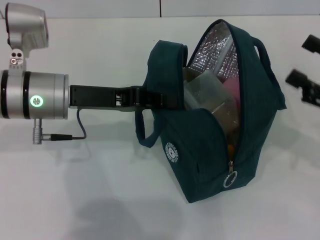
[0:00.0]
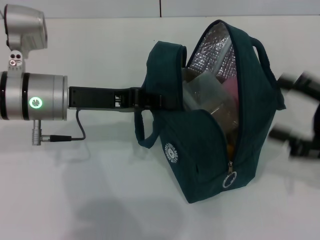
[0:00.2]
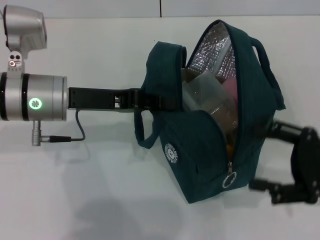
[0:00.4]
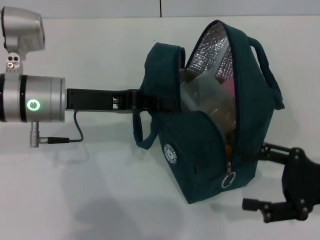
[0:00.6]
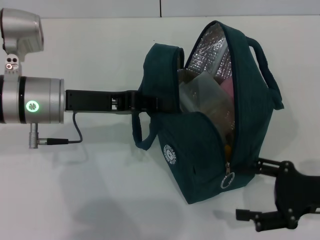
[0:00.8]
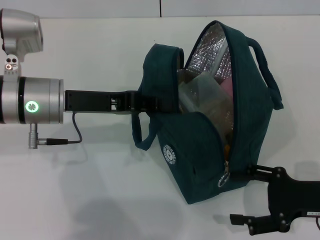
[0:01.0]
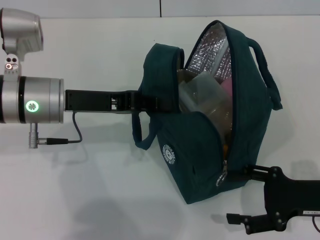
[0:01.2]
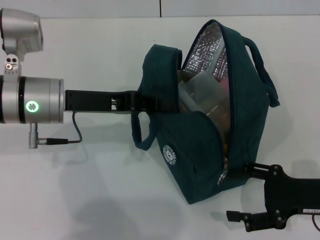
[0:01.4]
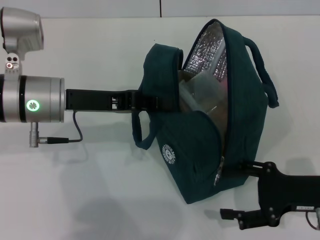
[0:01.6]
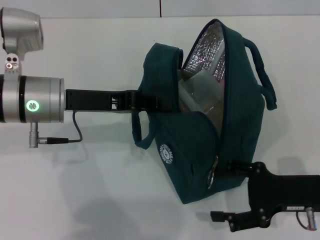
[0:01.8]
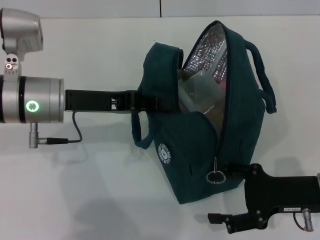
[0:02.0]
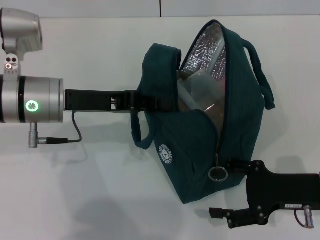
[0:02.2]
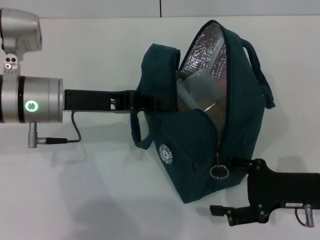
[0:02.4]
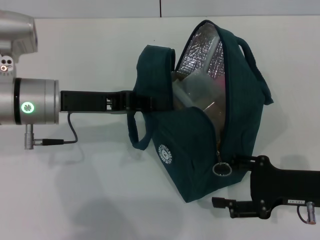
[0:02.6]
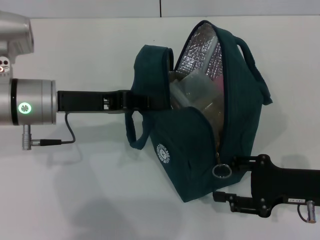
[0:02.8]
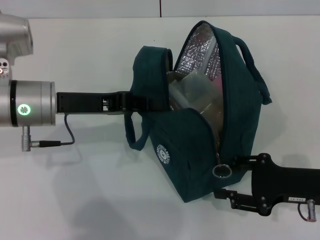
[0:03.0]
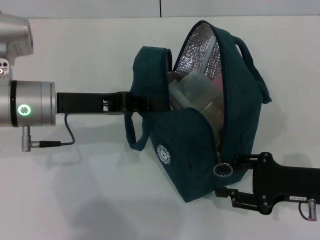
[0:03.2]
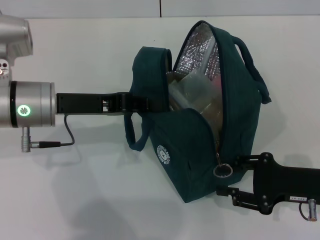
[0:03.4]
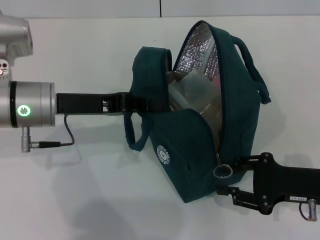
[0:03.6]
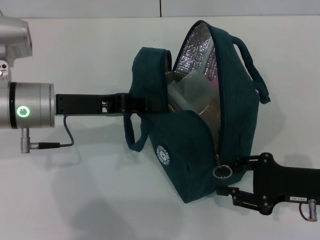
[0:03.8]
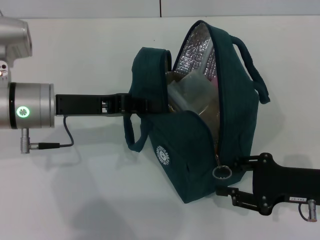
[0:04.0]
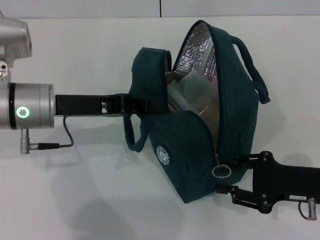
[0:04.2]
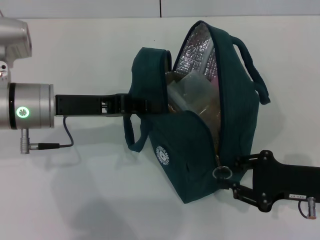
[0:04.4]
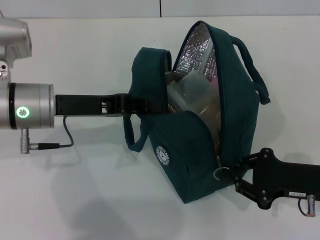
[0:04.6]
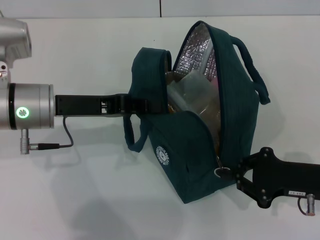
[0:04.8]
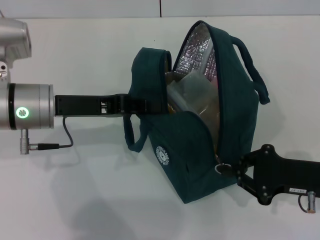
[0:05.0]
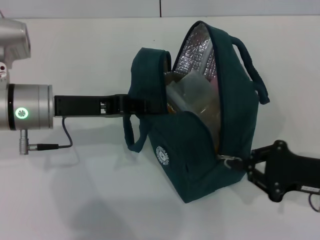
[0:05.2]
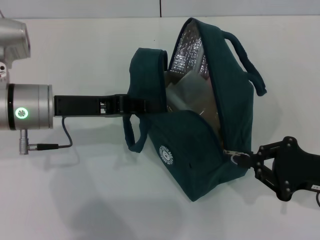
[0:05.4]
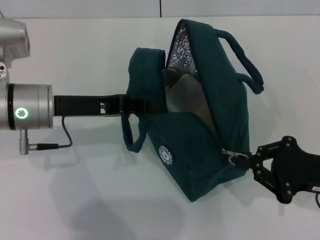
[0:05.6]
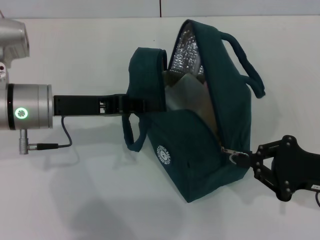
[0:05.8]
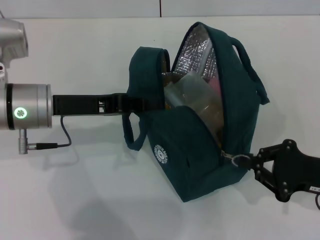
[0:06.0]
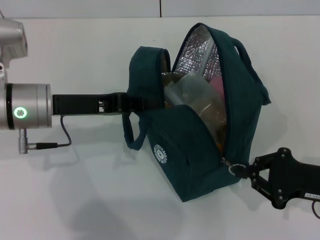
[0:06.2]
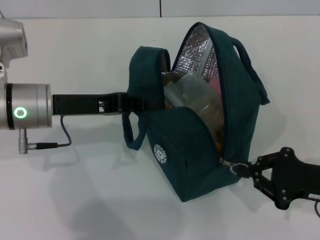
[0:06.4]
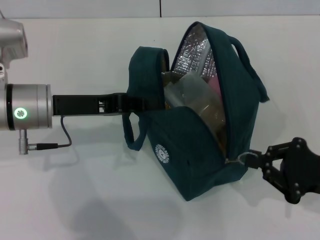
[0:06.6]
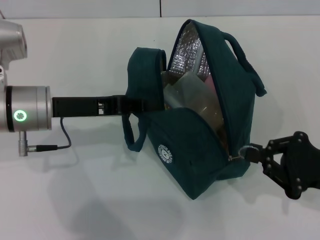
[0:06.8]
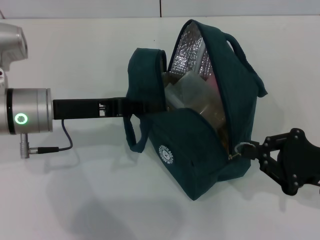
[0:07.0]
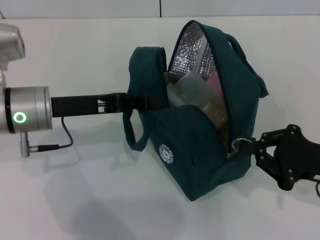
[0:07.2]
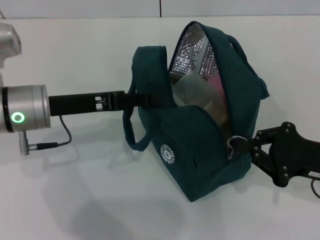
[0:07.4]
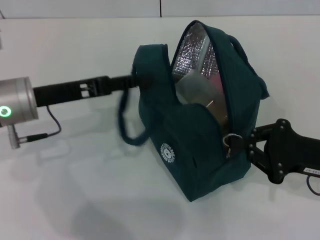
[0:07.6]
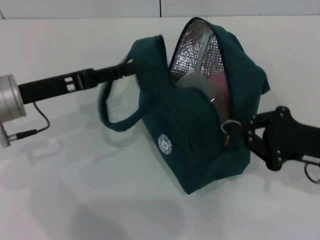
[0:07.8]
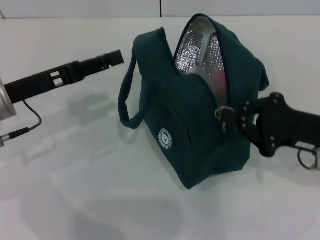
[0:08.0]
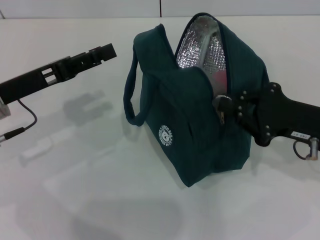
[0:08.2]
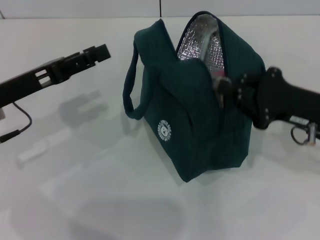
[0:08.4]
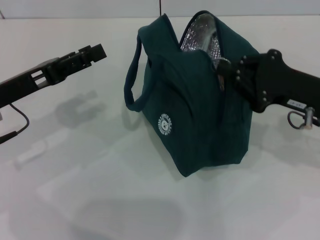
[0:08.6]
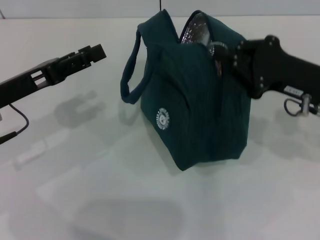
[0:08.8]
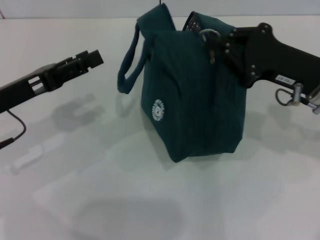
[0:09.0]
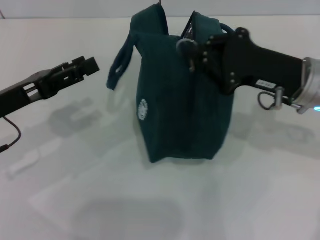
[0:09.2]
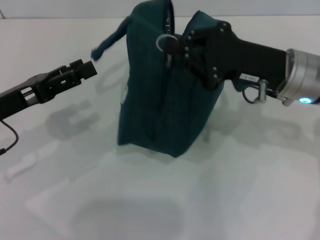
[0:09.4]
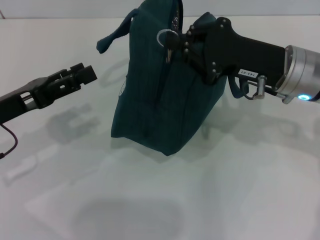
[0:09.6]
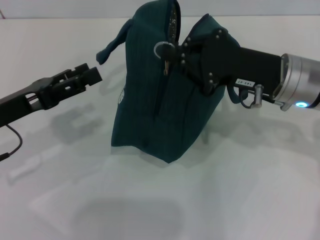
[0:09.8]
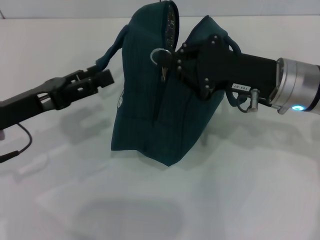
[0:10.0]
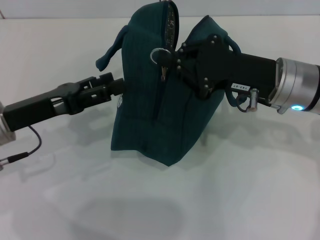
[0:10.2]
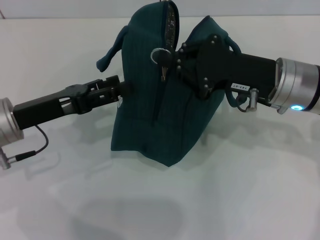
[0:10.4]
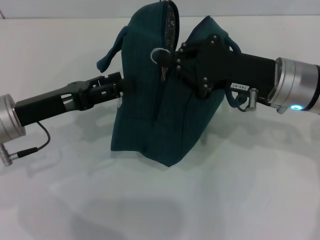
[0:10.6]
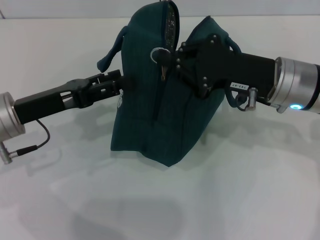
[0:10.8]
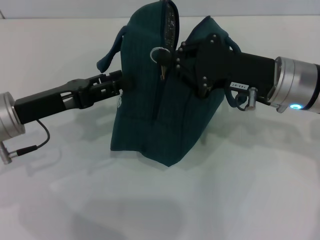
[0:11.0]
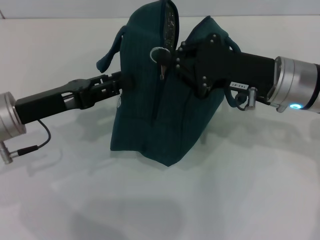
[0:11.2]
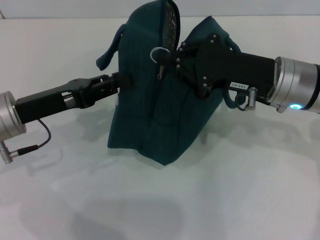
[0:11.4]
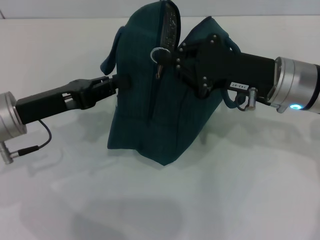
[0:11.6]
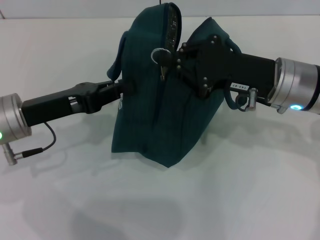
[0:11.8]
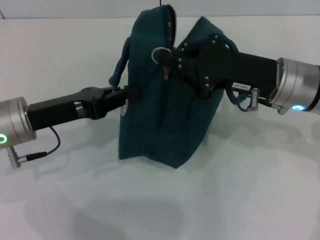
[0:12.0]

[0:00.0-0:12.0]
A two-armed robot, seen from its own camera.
Step, 0:00.0 to 0:08.0: Hold the lunch bag with your left hand.
0:00.0 to 0:01.6: The right gripper moves downward and to the left, roughly 10 cm.
0:01.6 to 0:03.0: The grippers make only small movements.
0:03.0 to 0:04.4: Both grippers stay about where they are.
0:04.4 to 0:06.0: The right gripper closes its fingers.
0:06.0 to 0:07.6: The left gripper opens up.
0:07.6 to 0:09.0: The right gripper shifts about 10 cm forward and upward. The left gripper ends up roughly 5 cm from where it was, and opens.
0:09.0 to 0:10.4: The right gripper moves to the left, approximately 5 cm.
0:10.4 to 0:12.0: The left gripper closes up.

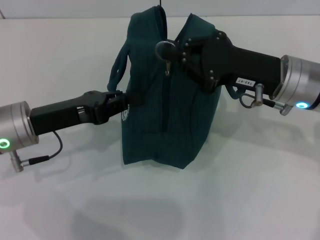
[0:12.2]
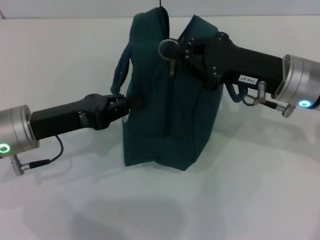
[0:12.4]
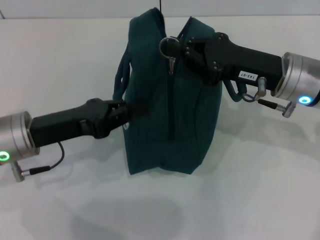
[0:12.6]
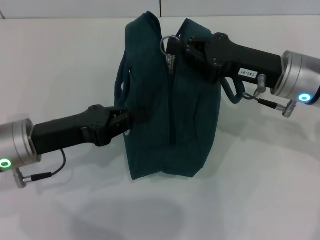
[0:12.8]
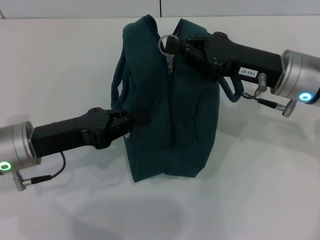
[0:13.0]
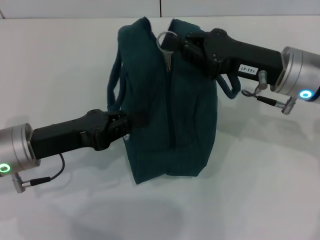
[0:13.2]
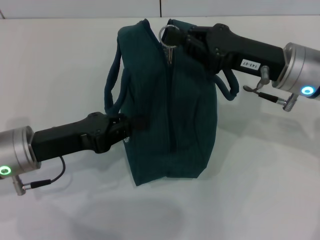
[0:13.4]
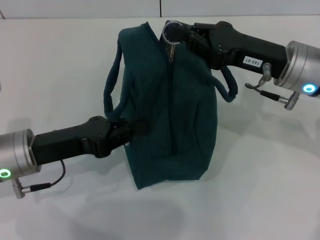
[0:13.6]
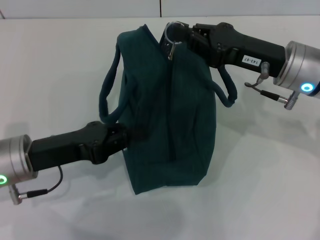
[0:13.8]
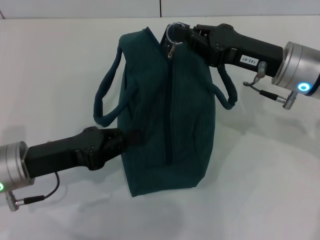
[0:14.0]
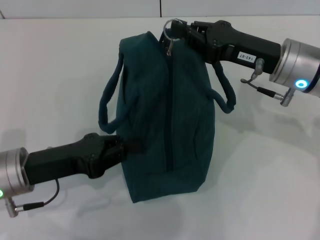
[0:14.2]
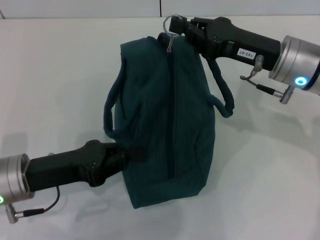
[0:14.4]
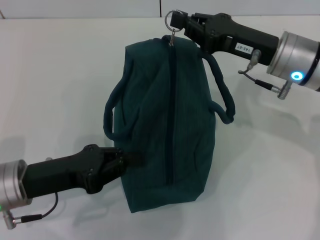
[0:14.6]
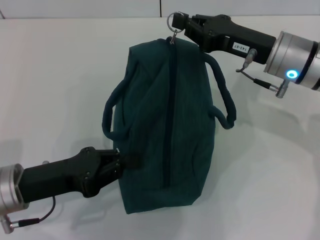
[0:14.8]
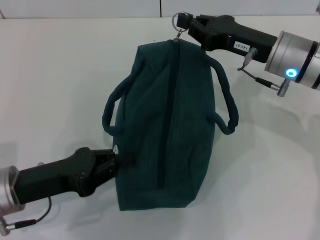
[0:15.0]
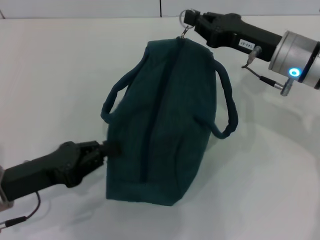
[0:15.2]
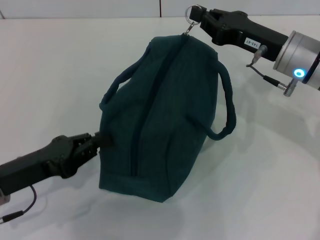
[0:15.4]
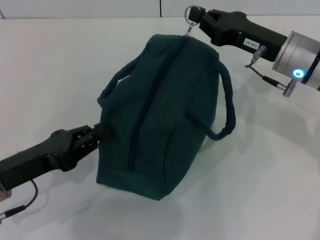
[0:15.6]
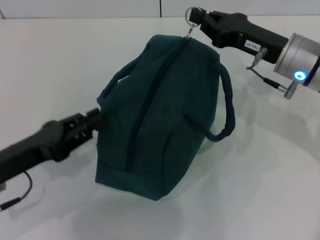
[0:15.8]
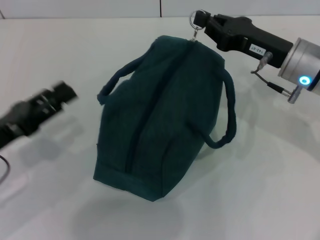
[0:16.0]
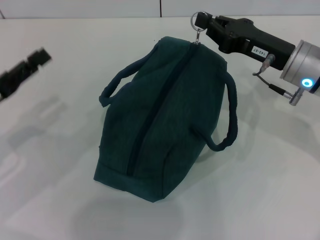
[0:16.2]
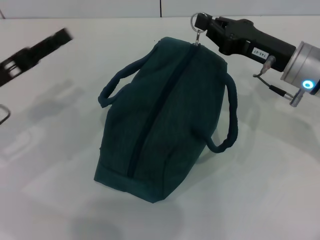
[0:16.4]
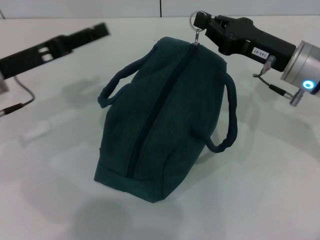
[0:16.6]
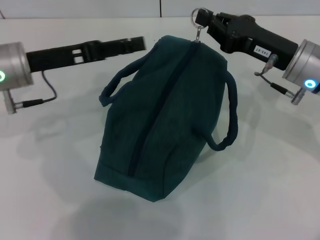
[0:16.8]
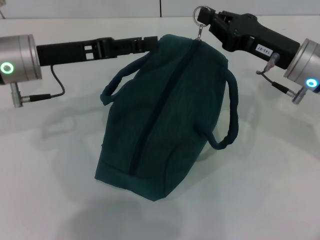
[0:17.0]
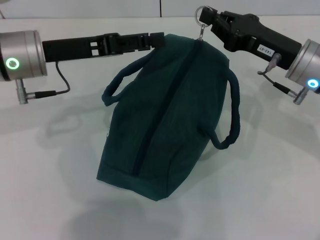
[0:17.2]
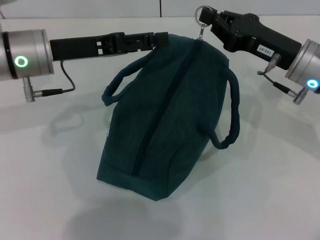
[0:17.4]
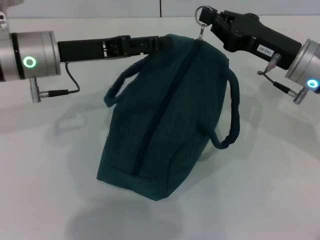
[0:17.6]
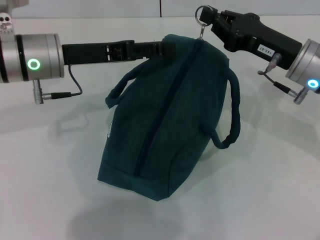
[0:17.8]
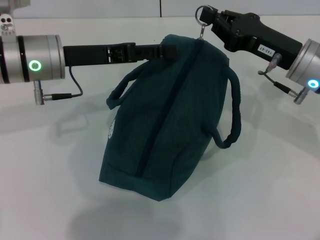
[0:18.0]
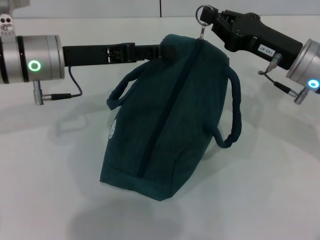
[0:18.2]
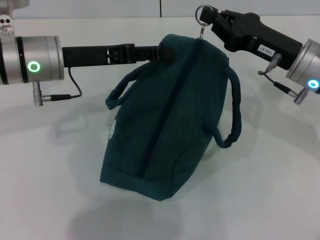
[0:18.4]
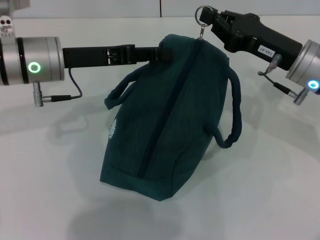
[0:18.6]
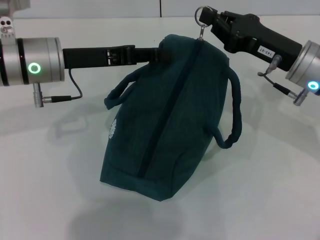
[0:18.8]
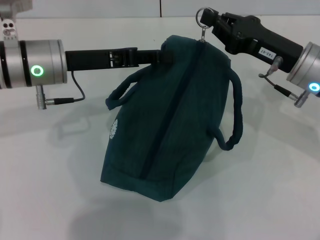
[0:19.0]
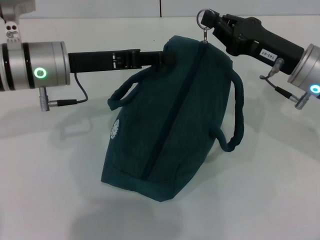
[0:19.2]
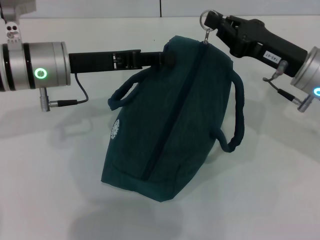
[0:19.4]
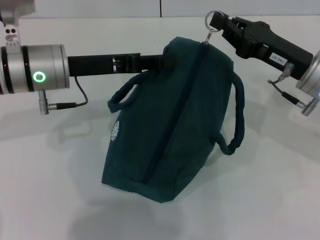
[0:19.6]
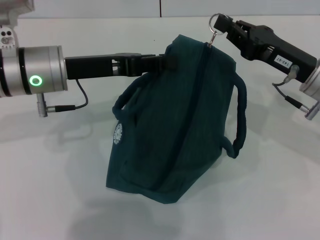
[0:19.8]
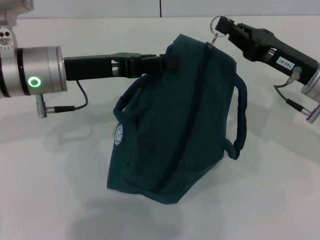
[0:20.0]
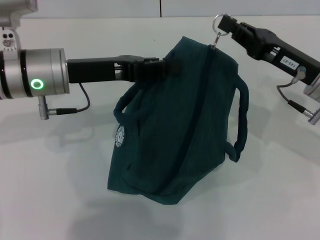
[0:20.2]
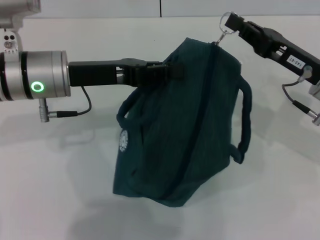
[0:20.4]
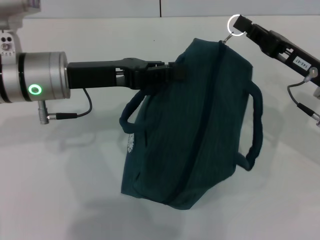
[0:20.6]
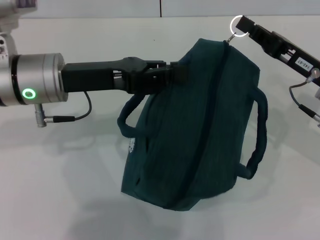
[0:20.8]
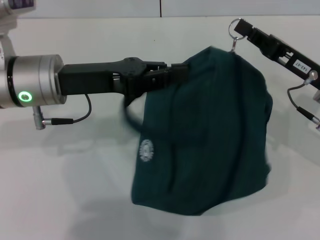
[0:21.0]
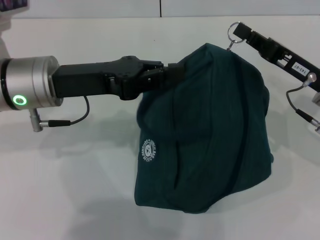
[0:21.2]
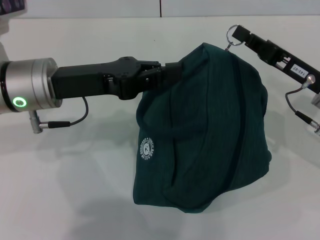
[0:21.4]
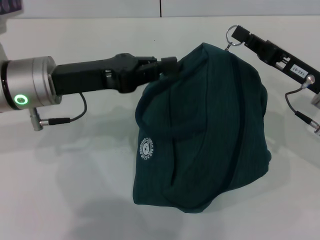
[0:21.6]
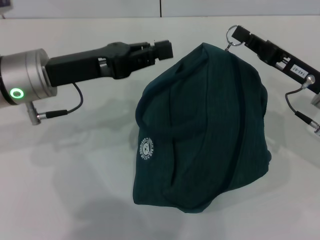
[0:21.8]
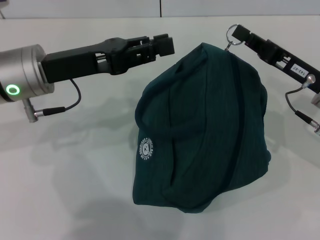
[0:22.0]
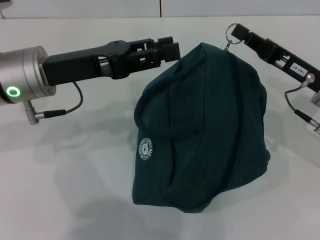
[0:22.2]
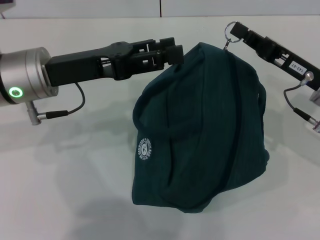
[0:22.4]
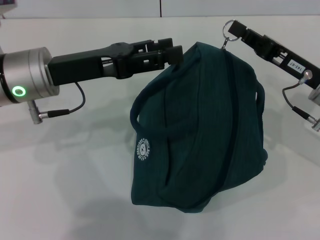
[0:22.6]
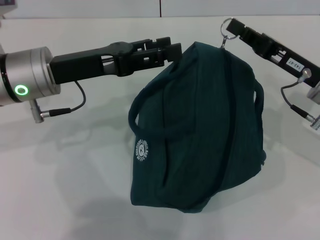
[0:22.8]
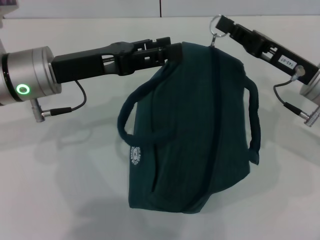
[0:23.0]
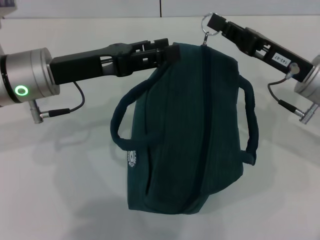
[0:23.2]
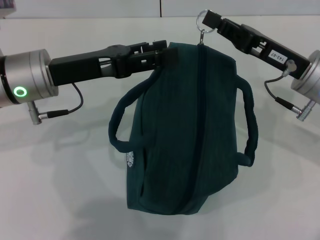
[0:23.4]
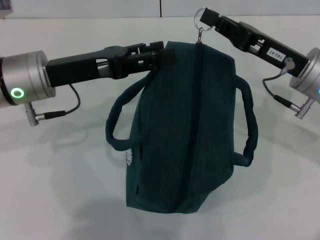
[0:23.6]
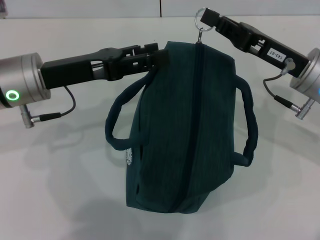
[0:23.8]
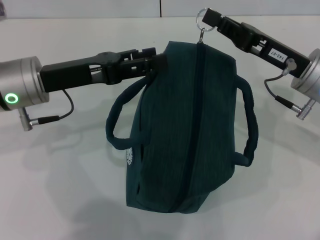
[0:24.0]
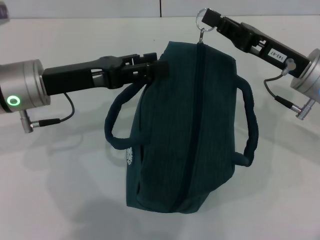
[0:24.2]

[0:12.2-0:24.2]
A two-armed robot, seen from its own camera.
0:13.8 to 0:15.2: The left gripper moves about 5 cm.
0:15.2 to 0:16.6: The left gripper goes some 15 cm forward and upward, and opens its fingers.
0:16.6 to 0:18.2: The left gripper shifts roughly 10 cm to the right.
0:18.2 to 0:19.8: The left gripper closes up.
0:21.2 to 0:22.6: The left gripper opens.
